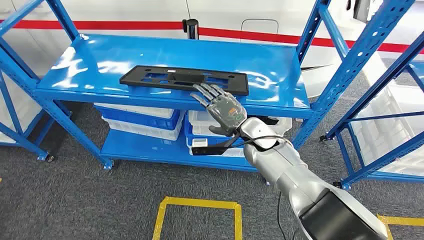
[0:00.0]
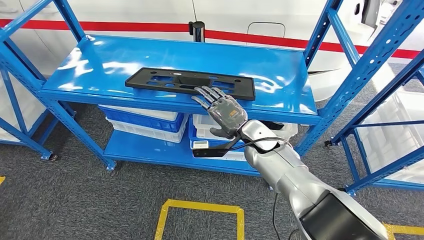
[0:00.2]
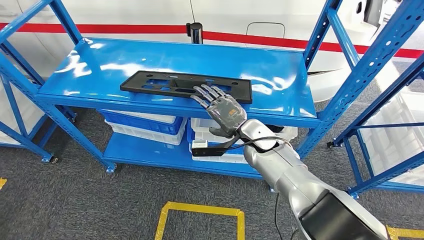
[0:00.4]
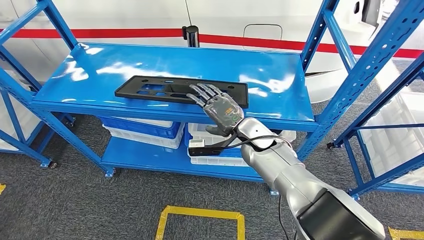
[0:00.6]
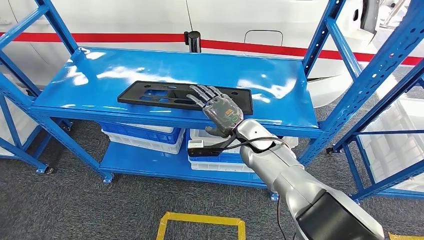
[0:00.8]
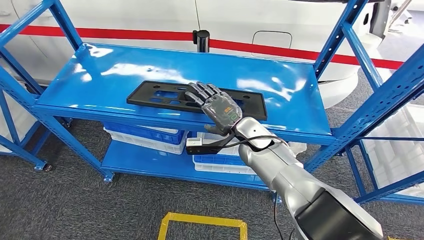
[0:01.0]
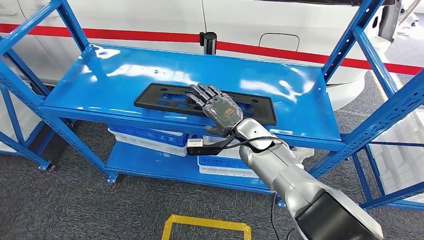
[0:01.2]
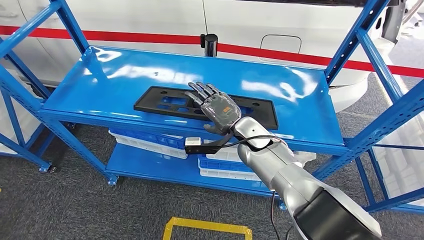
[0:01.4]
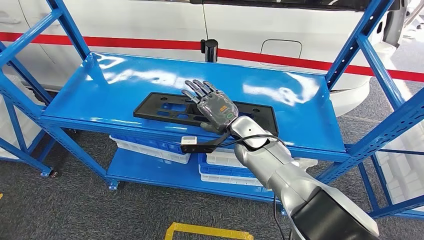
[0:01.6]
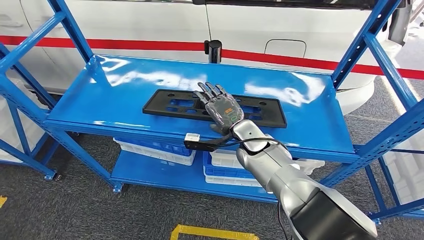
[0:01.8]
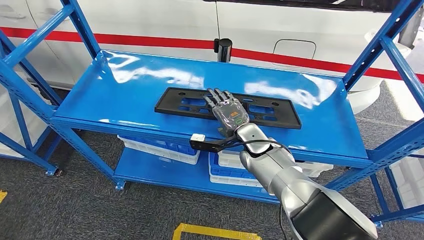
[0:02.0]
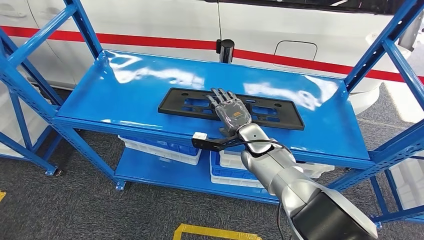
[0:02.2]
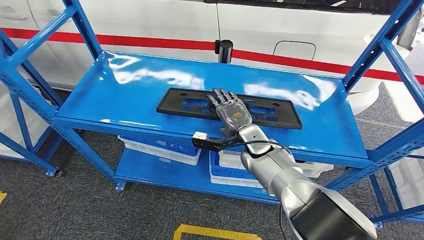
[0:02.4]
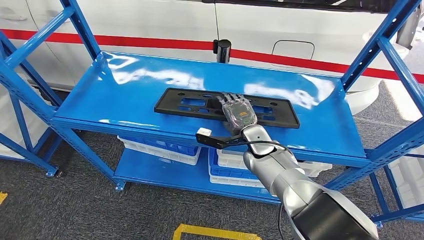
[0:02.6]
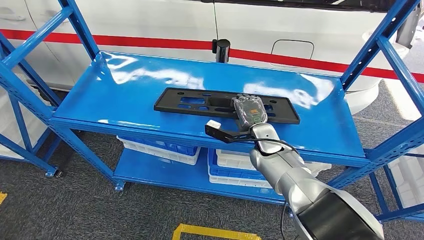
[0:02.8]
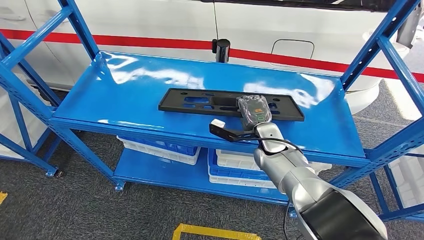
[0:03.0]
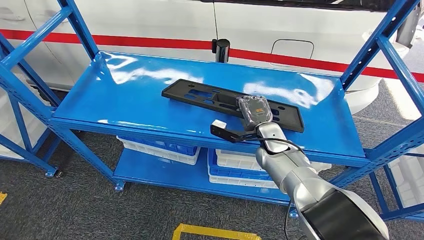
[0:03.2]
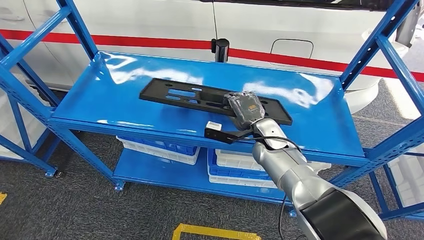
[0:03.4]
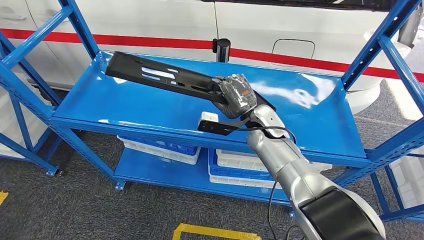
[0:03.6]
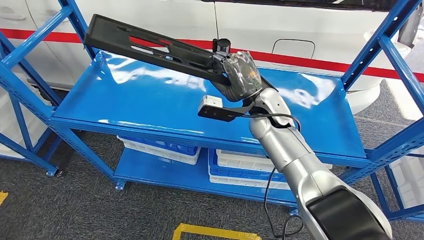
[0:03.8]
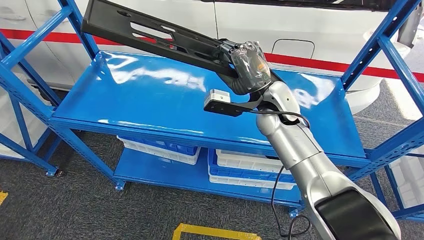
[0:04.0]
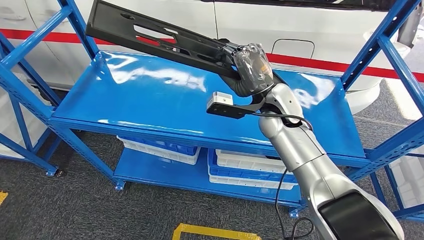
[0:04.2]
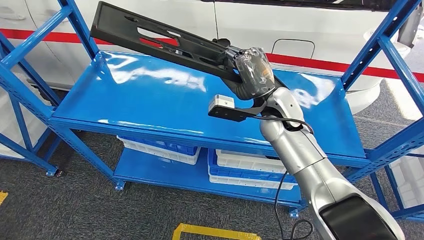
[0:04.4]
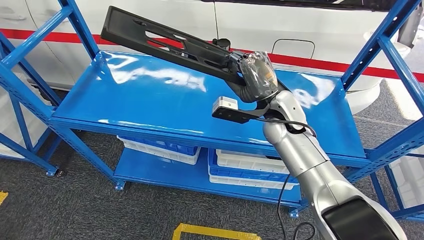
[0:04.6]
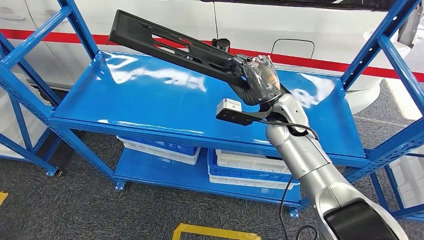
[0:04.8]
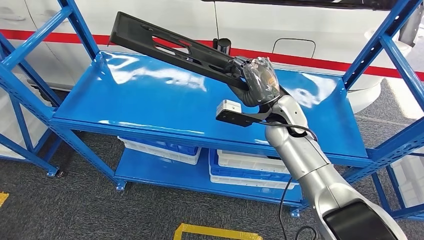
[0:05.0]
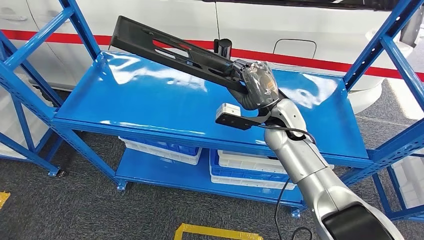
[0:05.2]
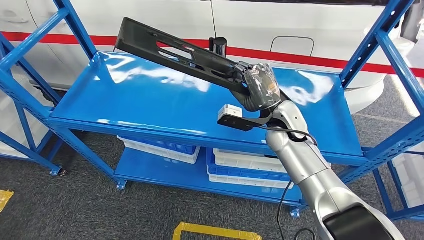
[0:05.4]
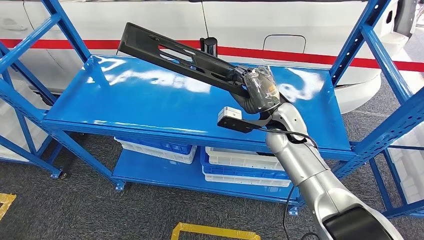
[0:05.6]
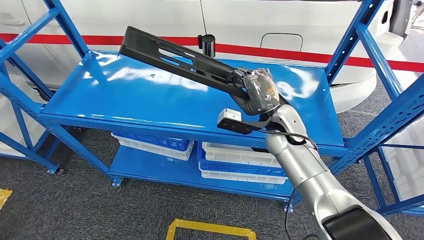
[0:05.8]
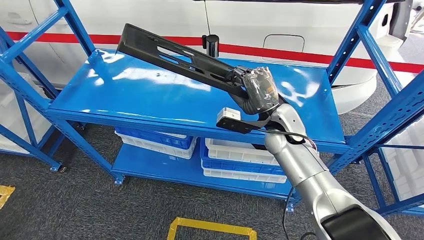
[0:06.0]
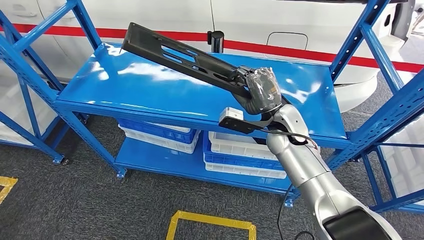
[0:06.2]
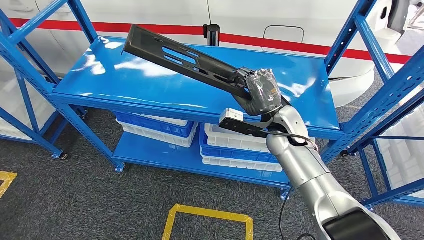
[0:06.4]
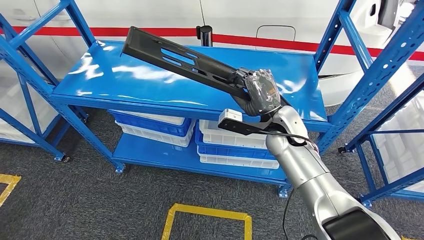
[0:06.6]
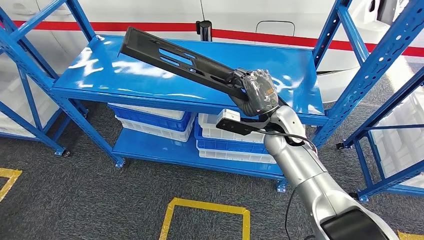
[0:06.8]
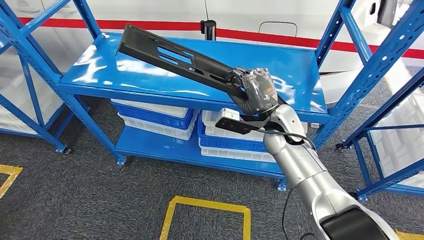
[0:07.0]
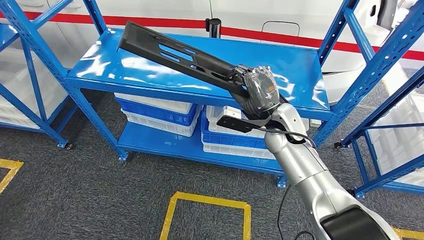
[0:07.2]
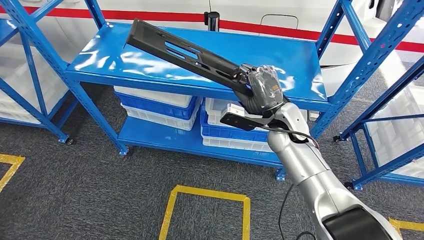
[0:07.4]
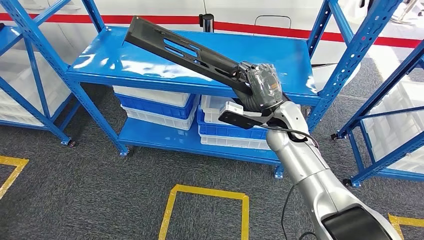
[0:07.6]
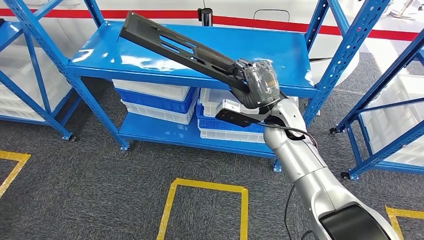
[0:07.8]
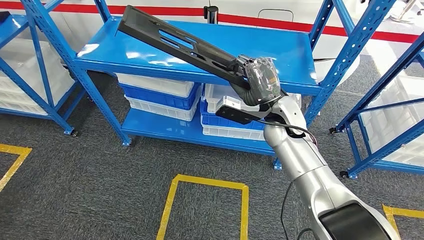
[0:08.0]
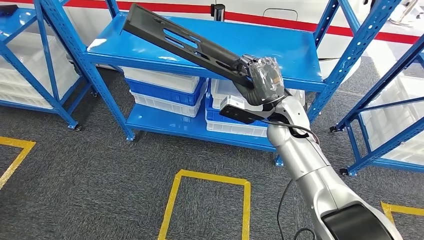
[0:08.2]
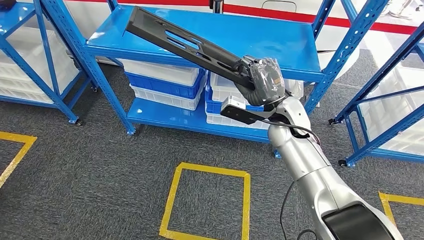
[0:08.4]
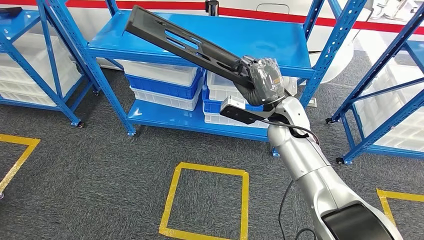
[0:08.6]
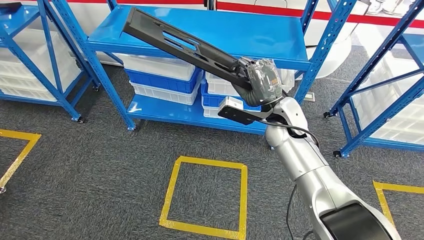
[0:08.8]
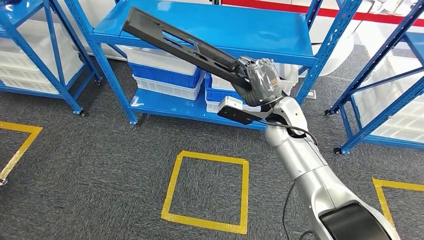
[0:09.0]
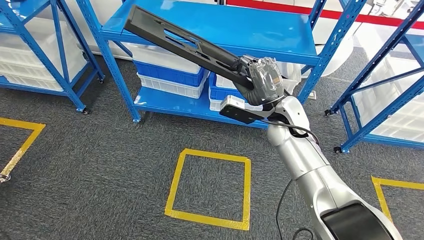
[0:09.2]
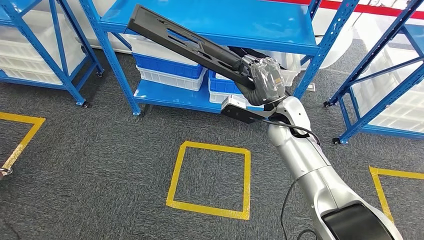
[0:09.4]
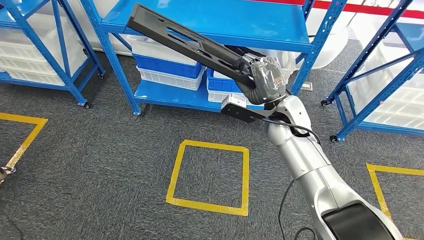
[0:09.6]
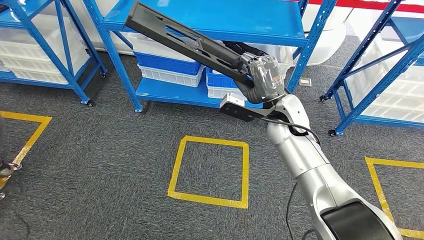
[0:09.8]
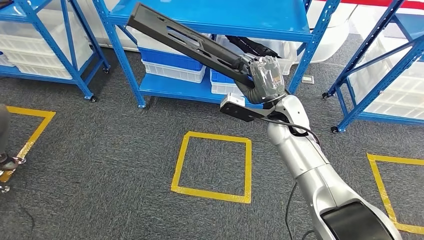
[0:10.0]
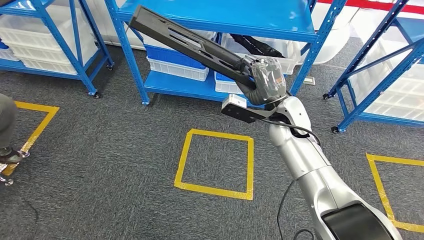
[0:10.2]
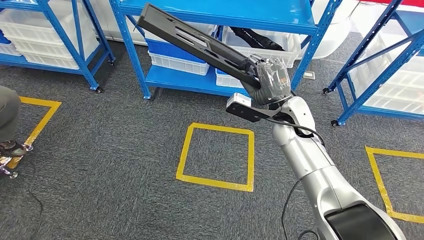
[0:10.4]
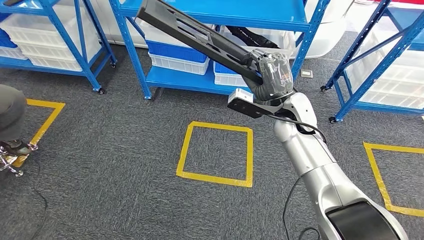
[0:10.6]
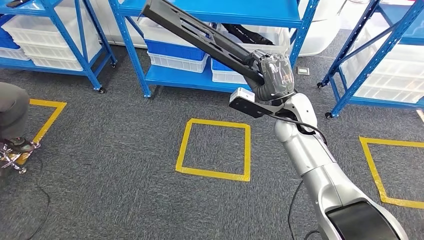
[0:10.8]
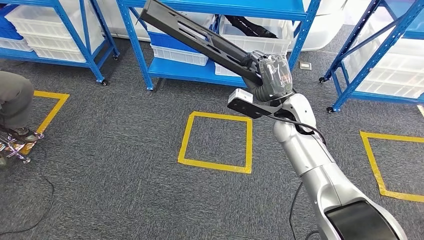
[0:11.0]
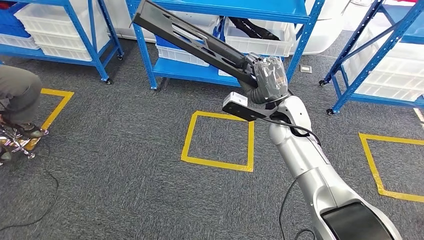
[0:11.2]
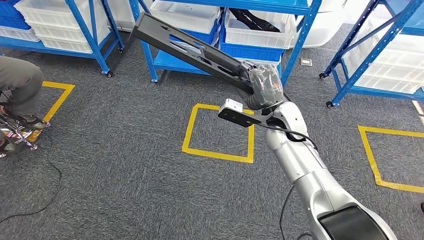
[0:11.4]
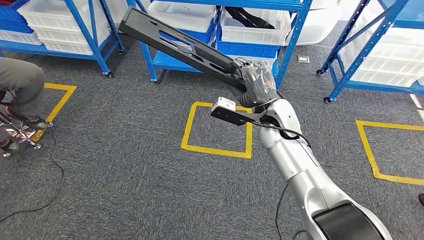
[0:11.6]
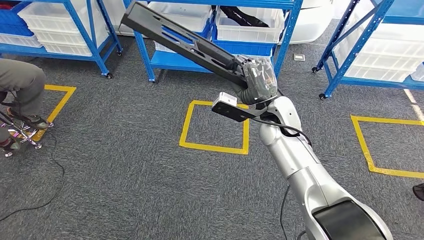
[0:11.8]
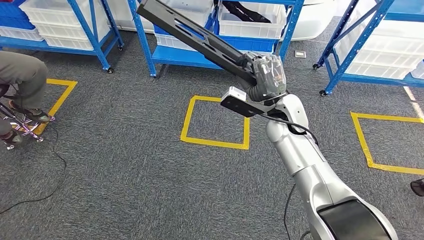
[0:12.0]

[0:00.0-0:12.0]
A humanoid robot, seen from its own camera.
Step, 0:00.0 to 0:10.8: Pick up the large material from the shelf.
0:03.0 to 0:04.4: The right hand shifts about 15 cm upward.

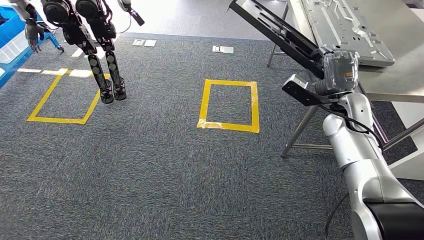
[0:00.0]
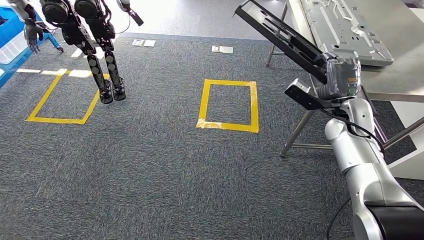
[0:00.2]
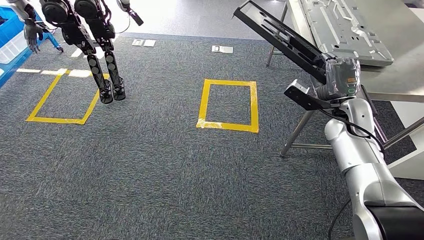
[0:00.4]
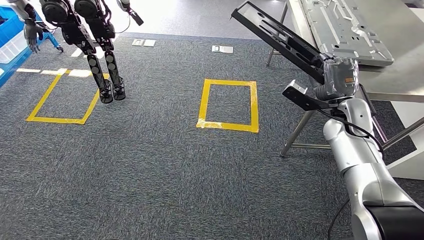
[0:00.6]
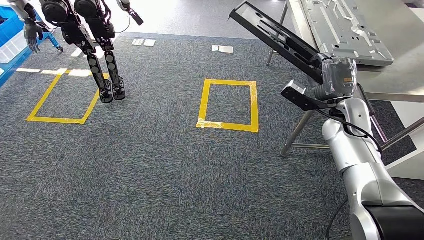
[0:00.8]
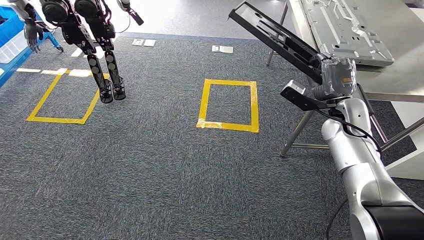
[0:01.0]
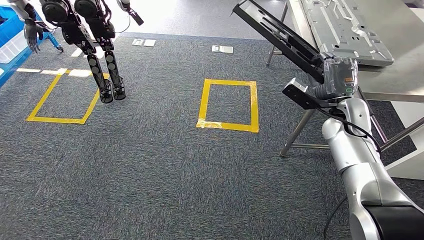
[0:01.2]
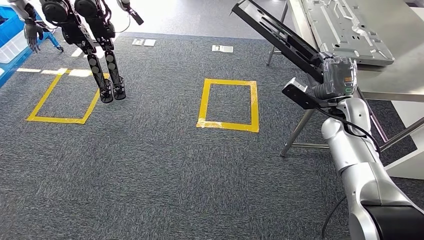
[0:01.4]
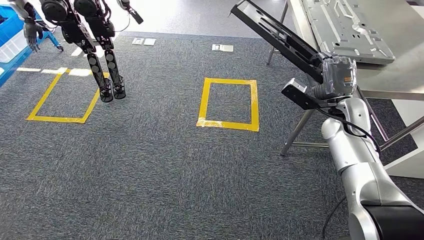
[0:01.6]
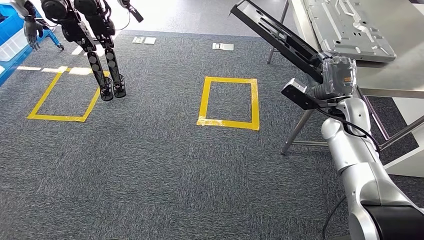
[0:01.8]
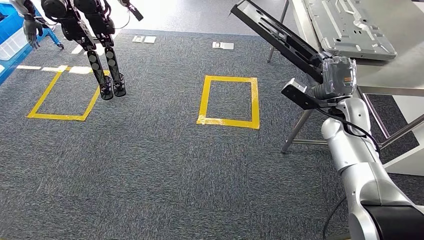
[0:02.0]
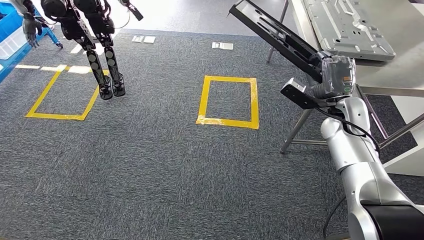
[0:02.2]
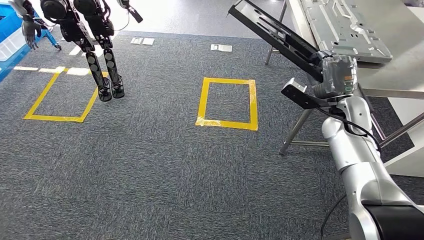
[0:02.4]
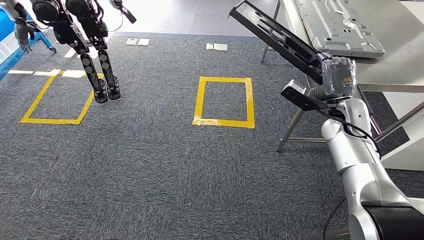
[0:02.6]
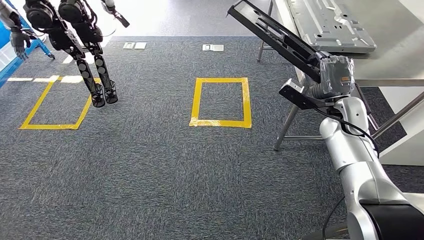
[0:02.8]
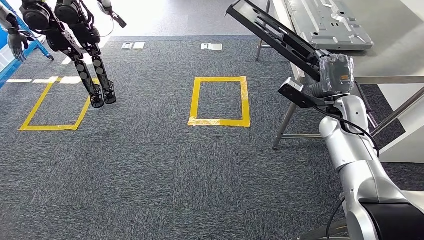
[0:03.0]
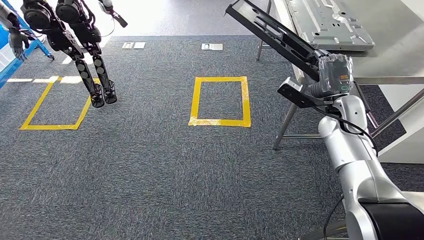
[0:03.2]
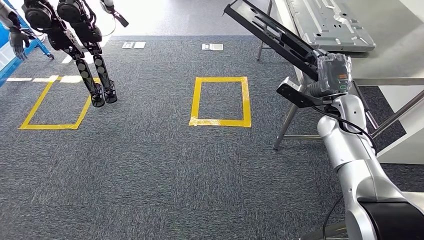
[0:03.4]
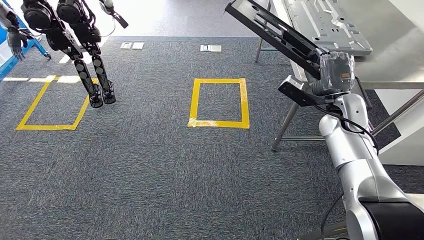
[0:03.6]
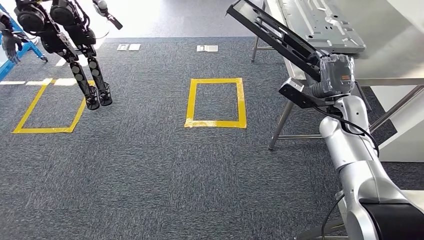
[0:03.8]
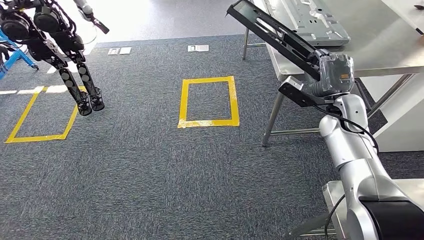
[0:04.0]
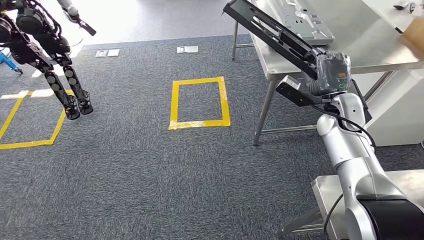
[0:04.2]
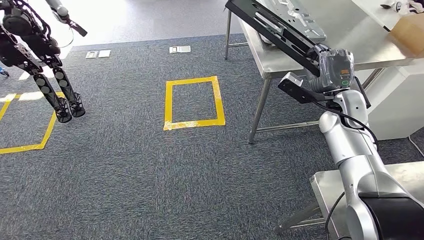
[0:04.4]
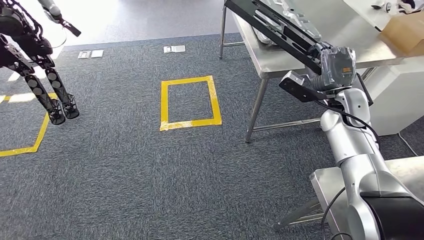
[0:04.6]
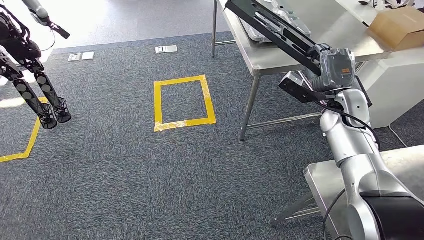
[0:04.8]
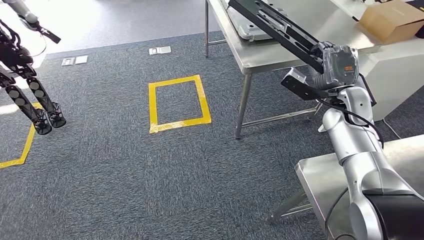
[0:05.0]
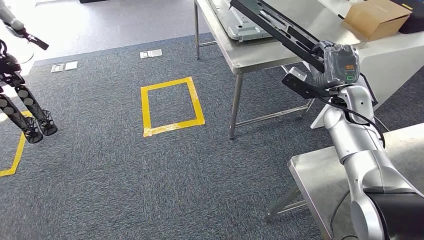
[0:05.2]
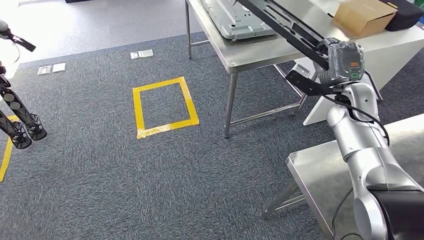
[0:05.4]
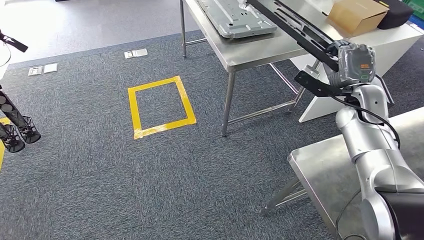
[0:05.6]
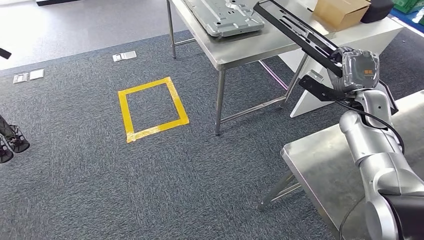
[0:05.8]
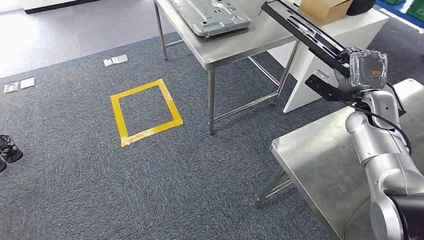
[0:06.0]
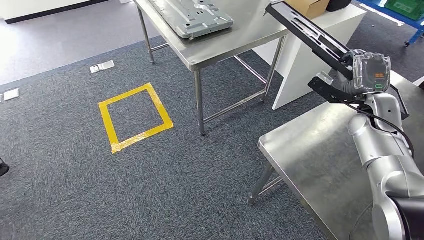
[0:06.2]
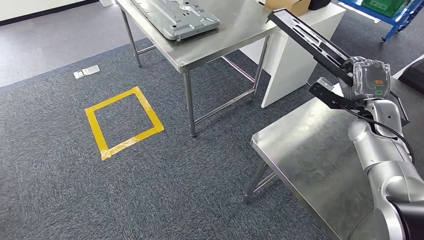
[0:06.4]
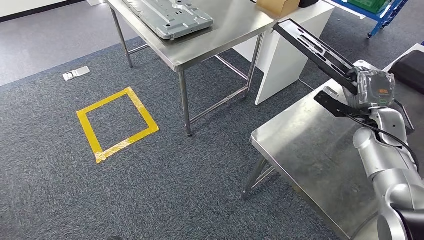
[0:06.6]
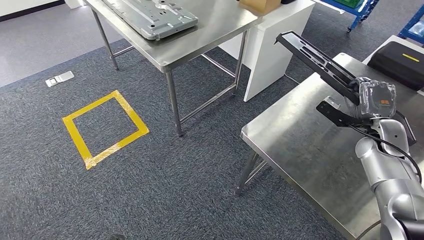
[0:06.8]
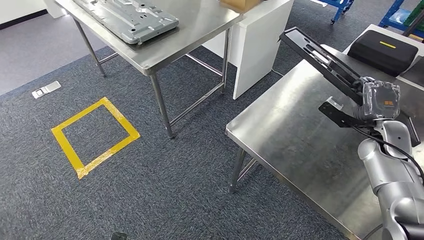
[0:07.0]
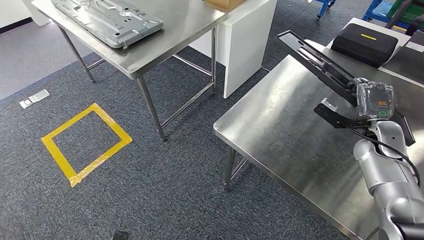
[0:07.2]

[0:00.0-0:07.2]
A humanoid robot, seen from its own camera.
0:00.0 to 0:01.4: There are only small adjustments of the hands.
